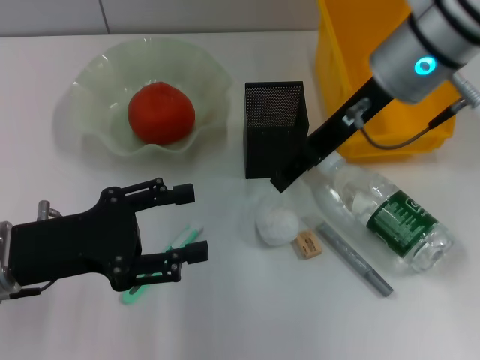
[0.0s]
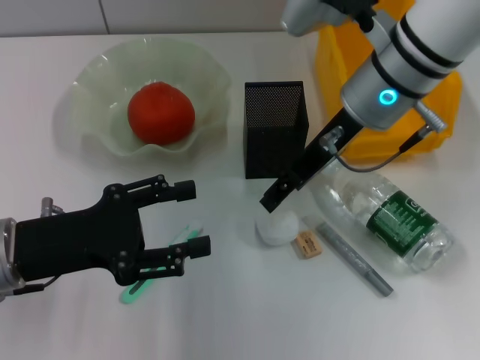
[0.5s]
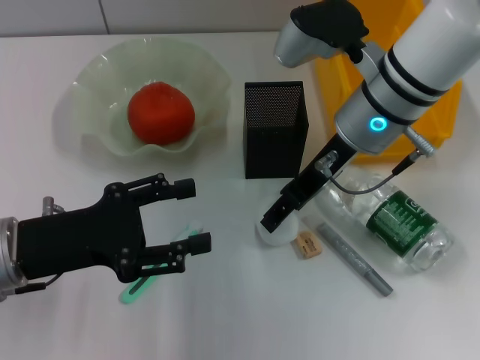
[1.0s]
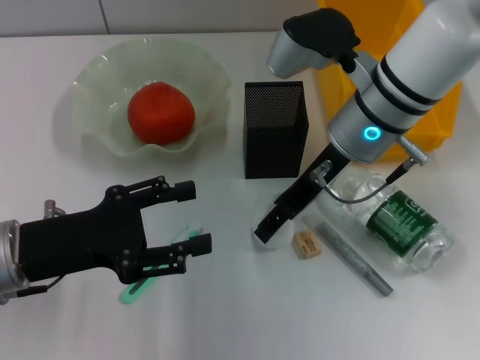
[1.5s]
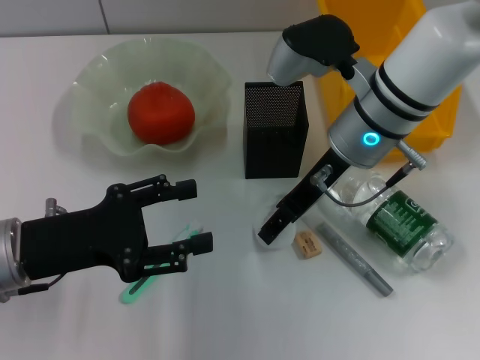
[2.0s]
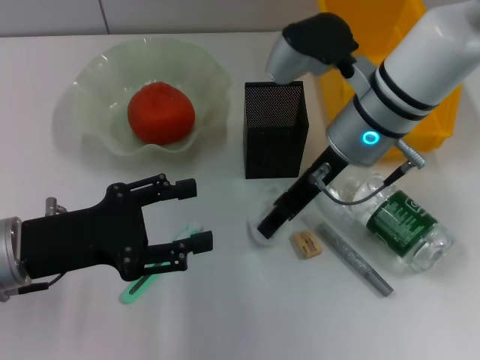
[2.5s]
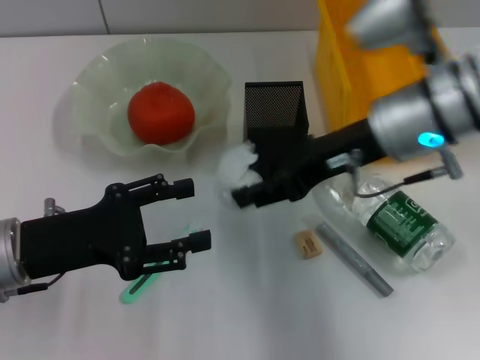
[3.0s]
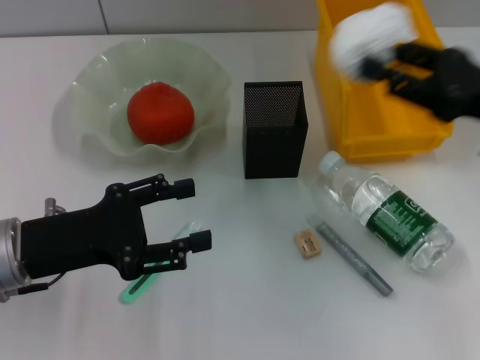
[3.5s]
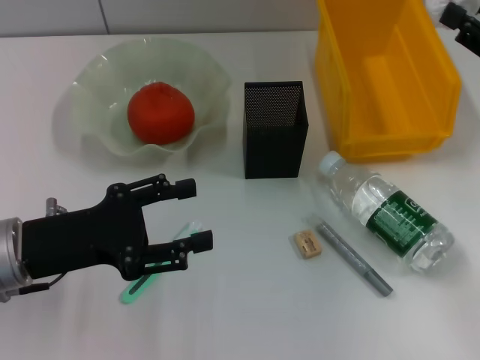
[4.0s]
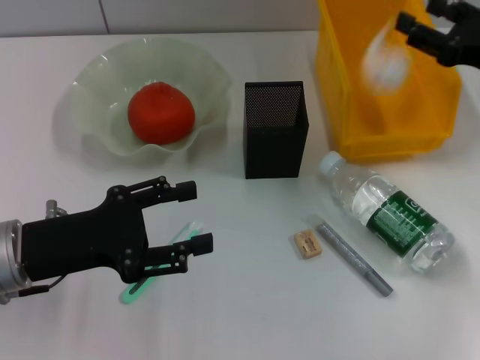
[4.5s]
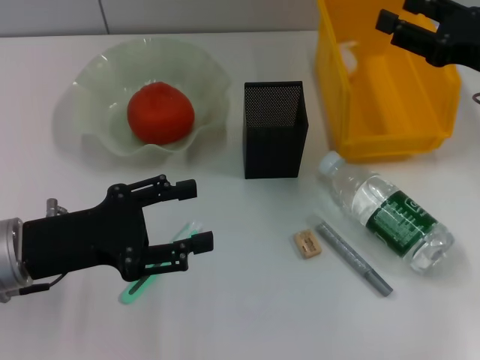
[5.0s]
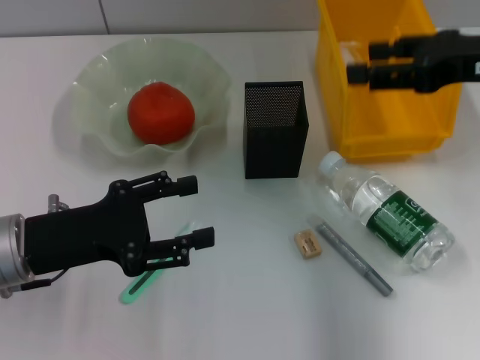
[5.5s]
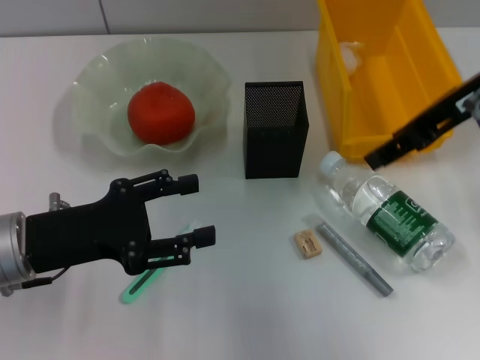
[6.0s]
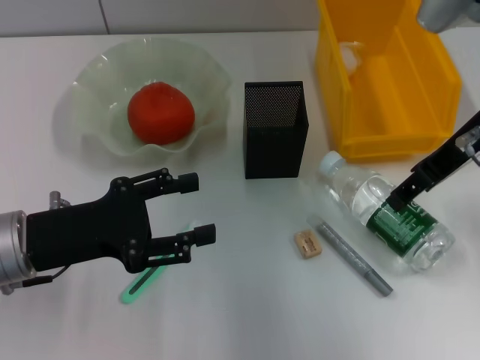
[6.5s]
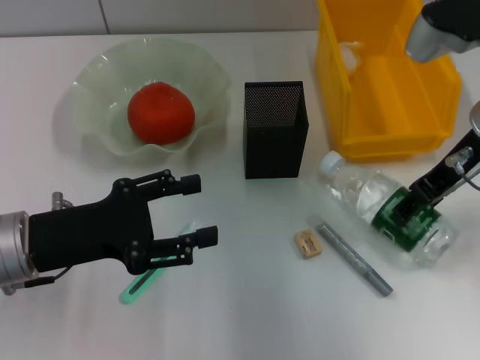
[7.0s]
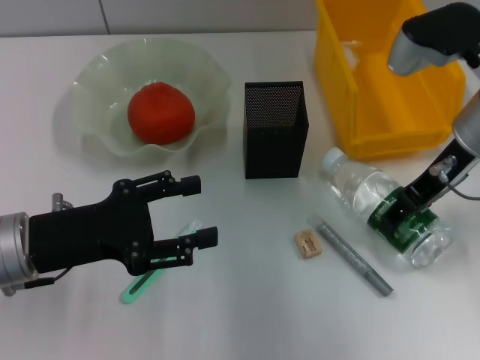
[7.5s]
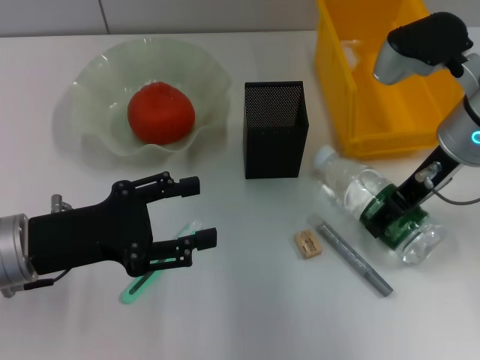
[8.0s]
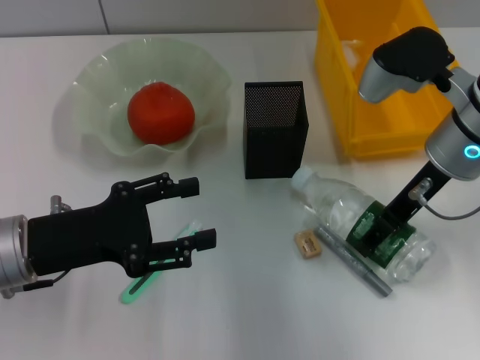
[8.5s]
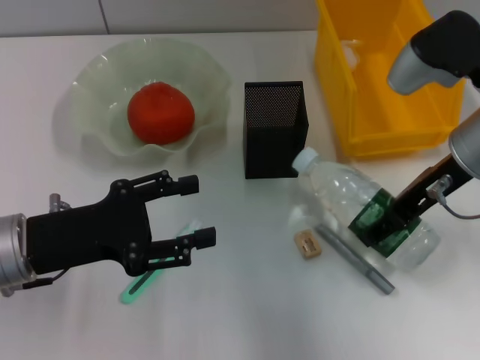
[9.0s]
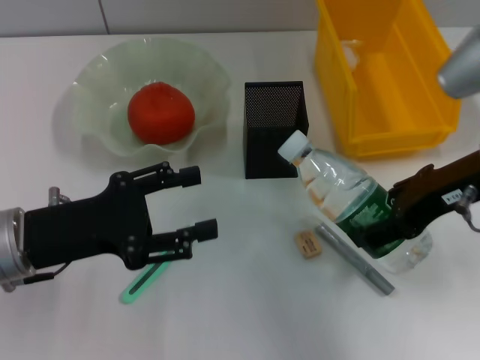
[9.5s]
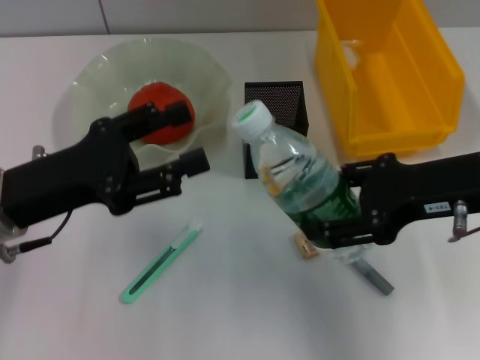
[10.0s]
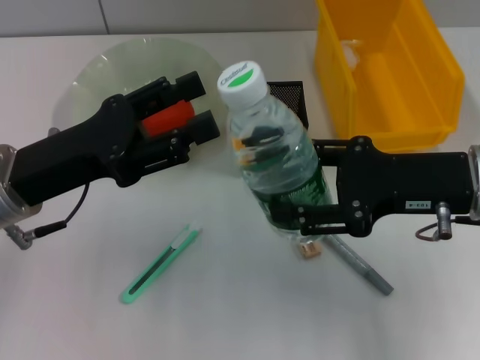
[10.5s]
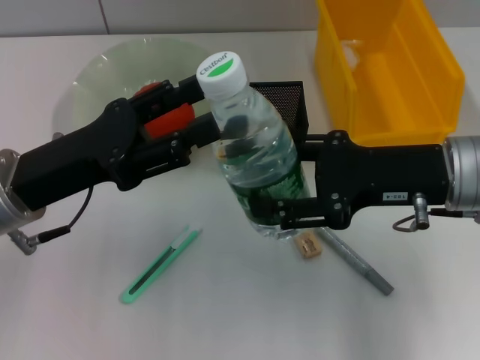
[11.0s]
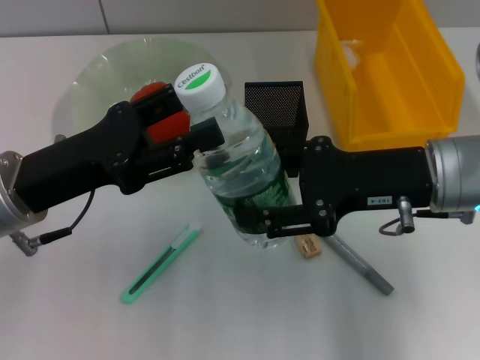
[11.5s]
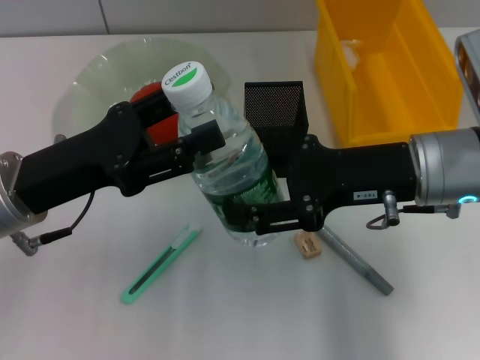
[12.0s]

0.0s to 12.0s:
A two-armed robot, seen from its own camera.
Step, 0.0s to 2.0s: Grab the paper ball with the right hand.
Step, 2.5s to 4.5s: Place the paper ball into the trash can with the right hand.
Step, 5.0s to 8.0s: Grab the water bottle with the right hand.
0.0s to 2.0s: The right gripper goes about 5 cm downward.
2.0s to 4.0s: The right gripper travels to the right by approximately 20 cm, and closes up.
4.0s to 6.0s: The right gripper is displaced to the left and upward by approximately 15 cm.
6.0s to 8.0s: The right gripper heads downward, covering approximately 10 cm.
8.0s to 10.0s: The right gripper moves backward, approximately 10 cm.
10.0s to 12.0s: The right gripper shifts by approximately 5 cm.

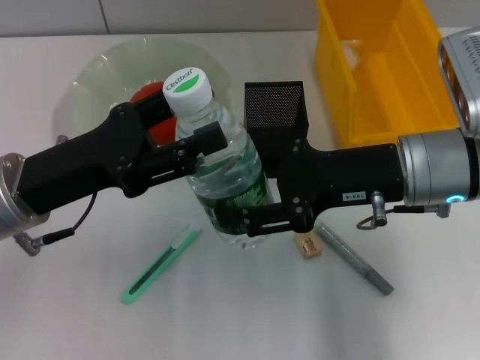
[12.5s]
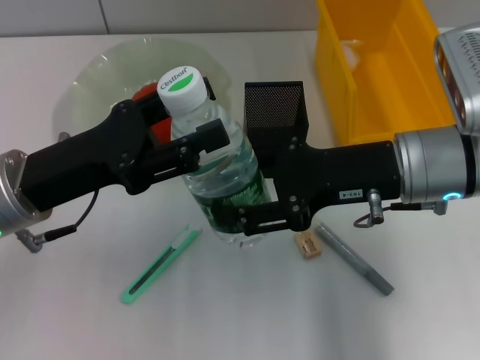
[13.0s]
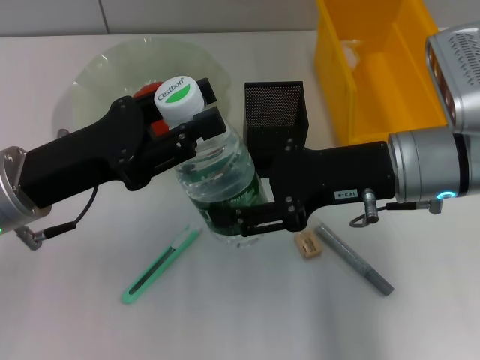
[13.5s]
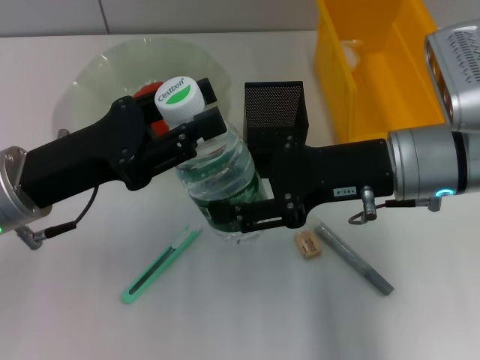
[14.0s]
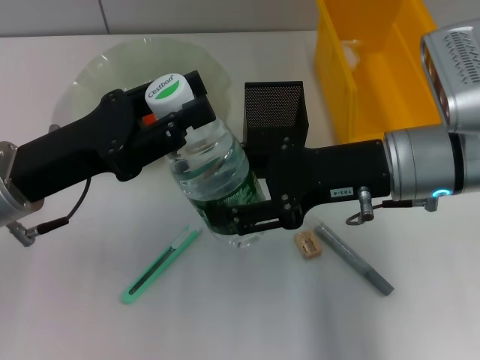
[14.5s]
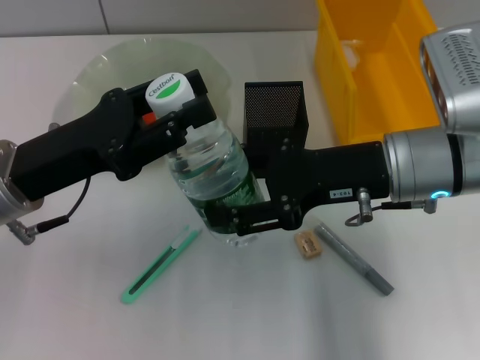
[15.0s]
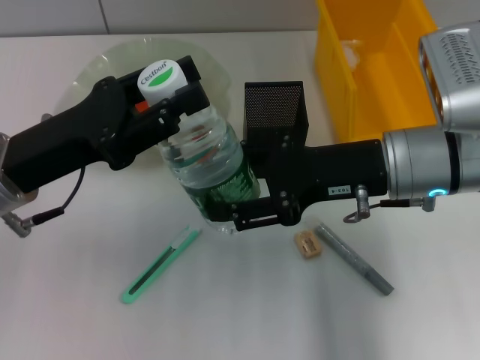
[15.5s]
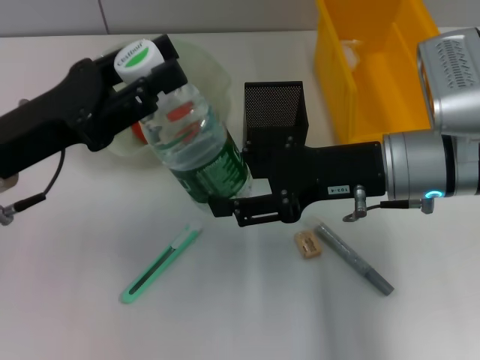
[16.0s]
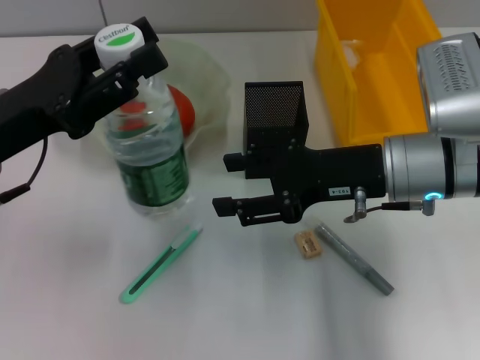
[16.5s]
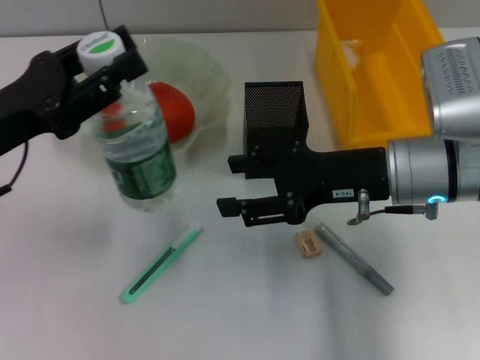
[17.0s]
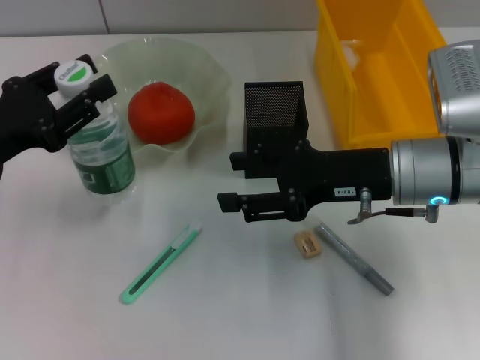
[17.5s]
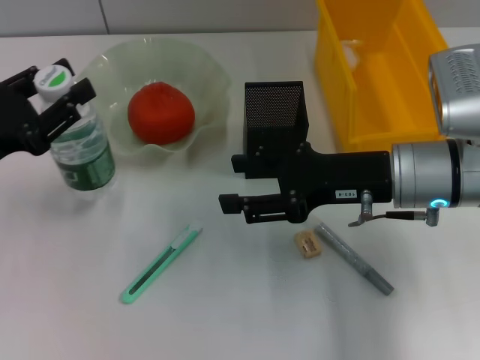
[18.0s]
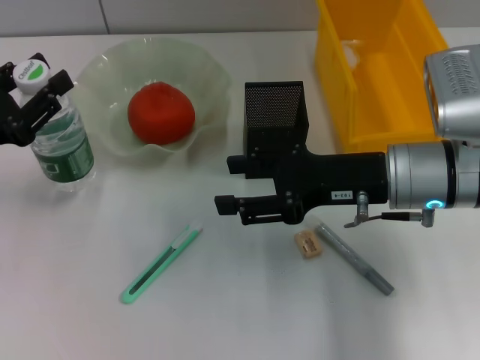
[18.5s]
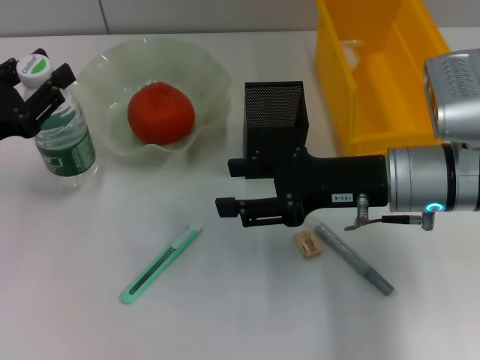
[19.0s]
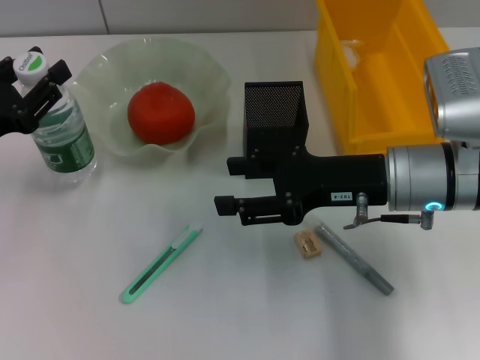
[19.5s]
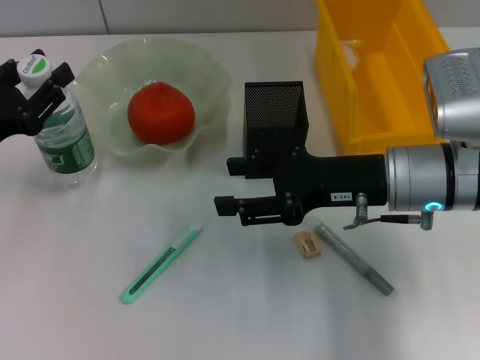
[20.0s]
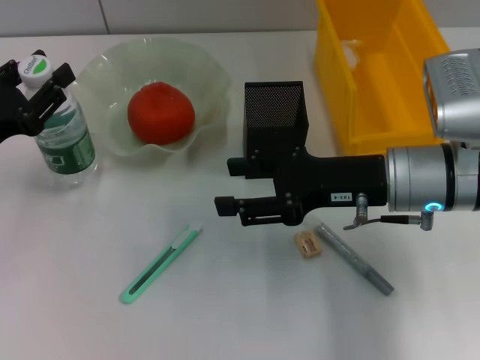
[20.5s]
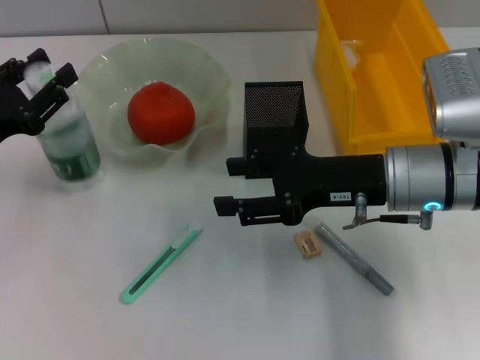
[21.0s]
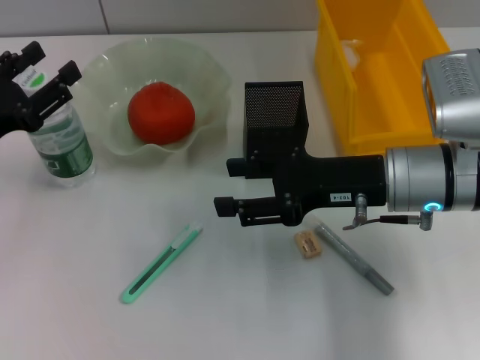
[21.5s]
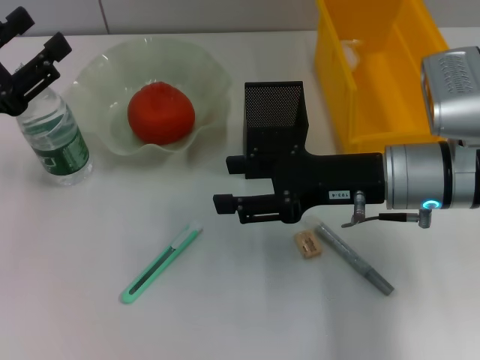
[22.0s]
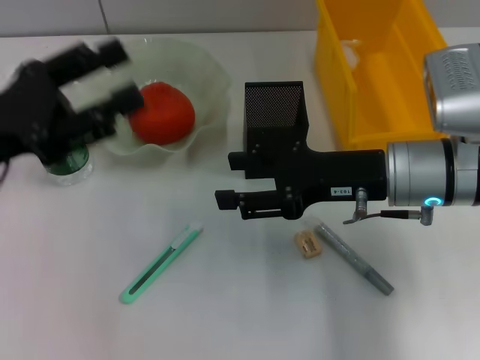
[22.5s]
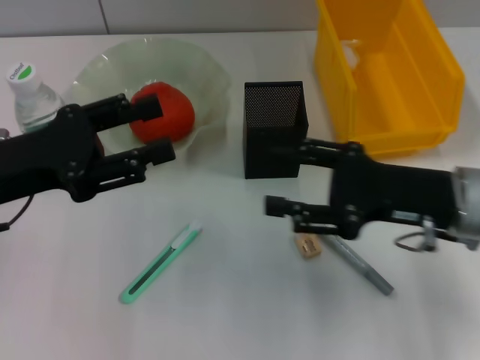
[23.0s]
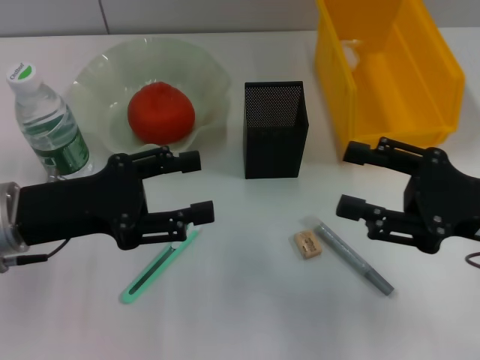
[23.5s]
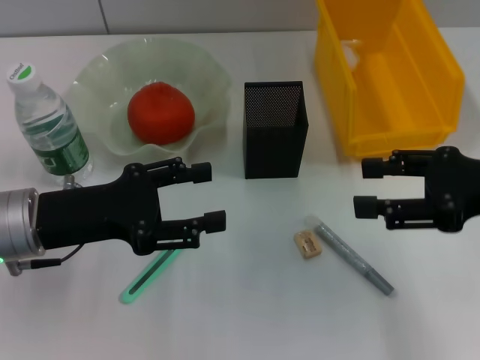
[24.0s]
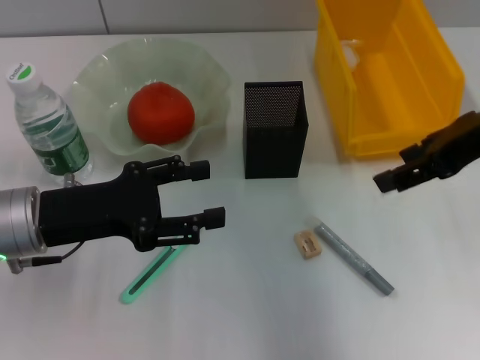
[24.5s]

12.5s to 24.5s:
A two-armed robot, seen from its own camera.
Step, 12.5s to 16.0s: Pass the water bottle from the right hand to the left hand.
Step, 16.5s to 21.5s: Place the water bottle on the table with the left hand.
12.5s to 14.5s: The left gripper closes up.
16.5s to 18.5s: The left gripper travels to the left by approximately 5 cm.
18.5s to 20.5s: The grippers make only small movements.
20.5s to 22.5s: The left gripper shifts some 5 cm upward.
22.5s to 24.5s: The right gripper is displaced upward and to the right by some 15 cm, while the left gripper is displaced downward by roughly 5 cm.

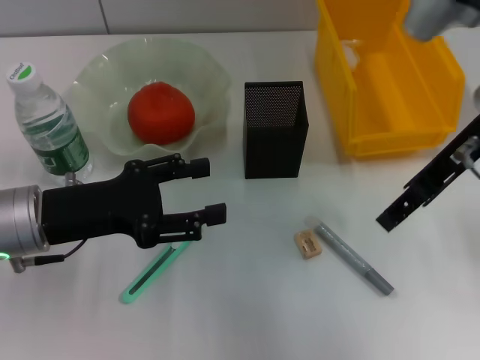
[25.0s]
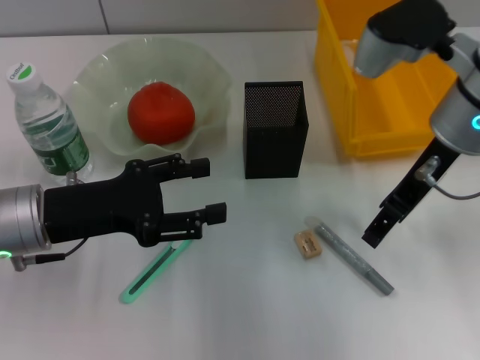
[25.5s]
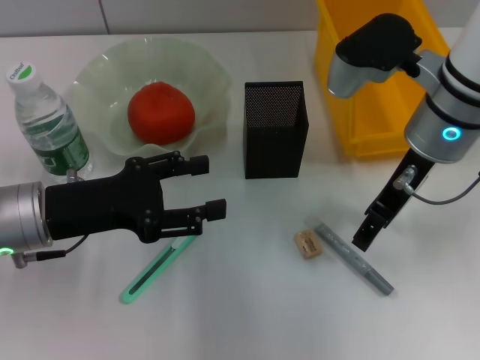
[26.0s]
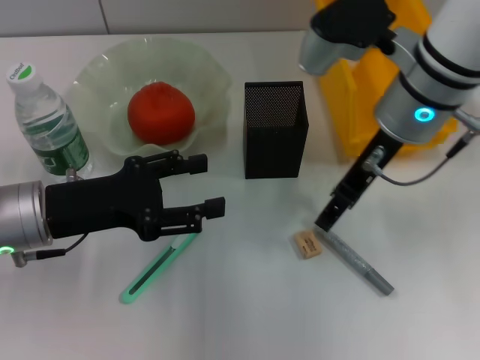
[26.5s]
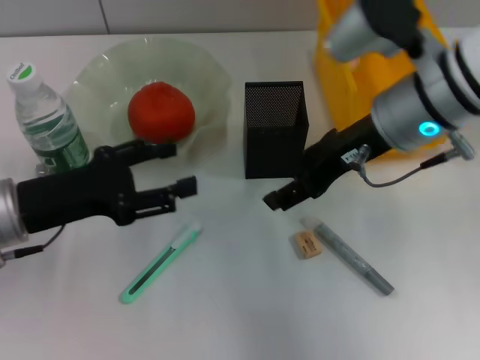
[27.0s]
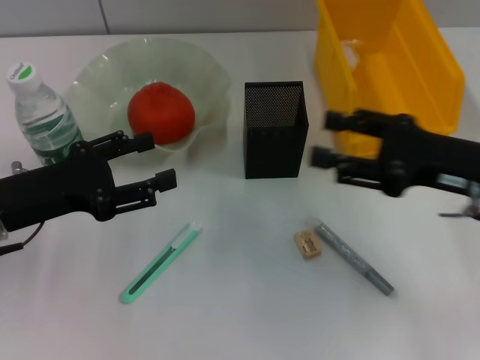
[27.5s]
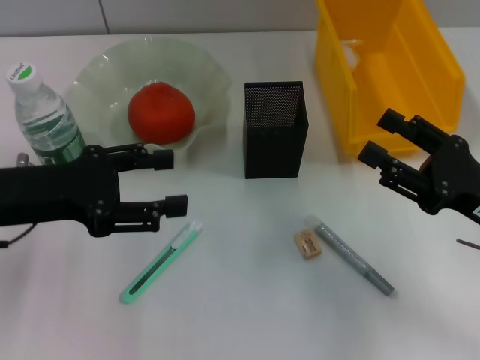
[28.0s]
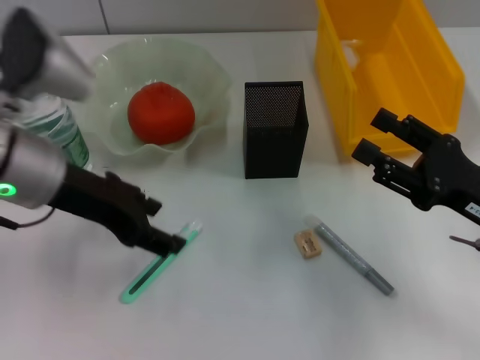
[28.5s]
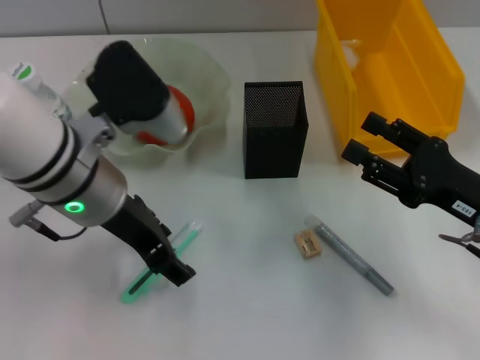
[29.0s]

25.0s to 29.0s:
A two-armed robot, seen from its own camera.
25.0s to 27.0s: The right gripper moves to the left, roughly 5 cm.
27.0s to 29.0s: The left gripper goes approximately 15 cm to the right and upward, while the right gripper is displaced to the right, downward and backward by about 20 cm.
